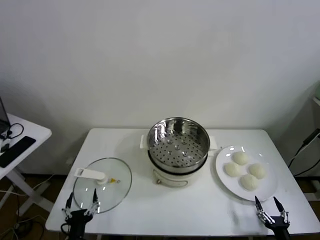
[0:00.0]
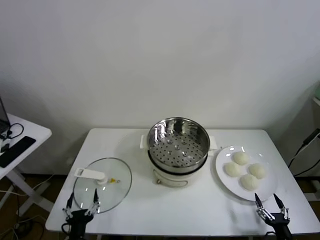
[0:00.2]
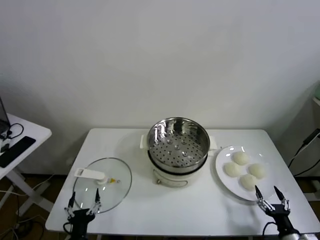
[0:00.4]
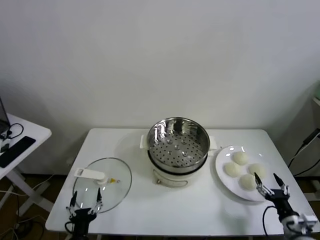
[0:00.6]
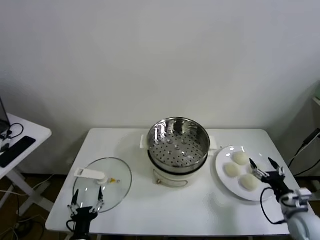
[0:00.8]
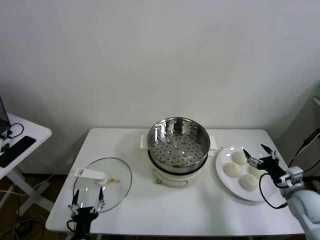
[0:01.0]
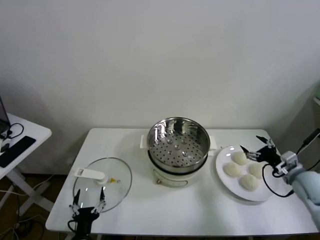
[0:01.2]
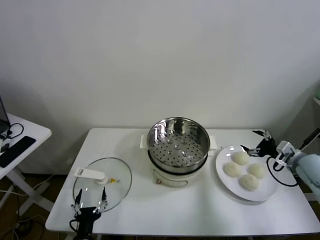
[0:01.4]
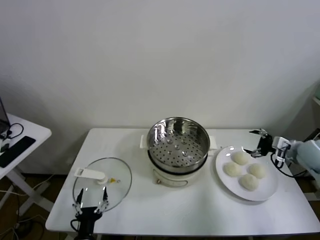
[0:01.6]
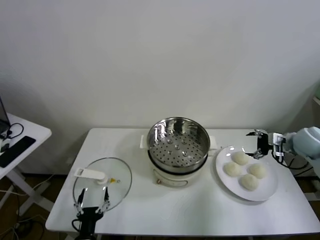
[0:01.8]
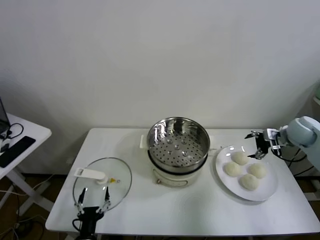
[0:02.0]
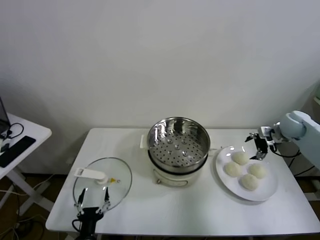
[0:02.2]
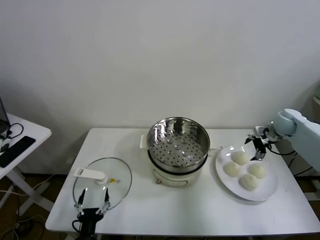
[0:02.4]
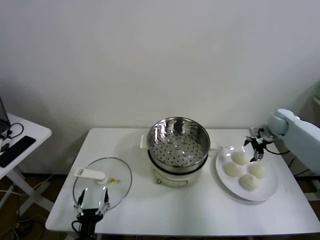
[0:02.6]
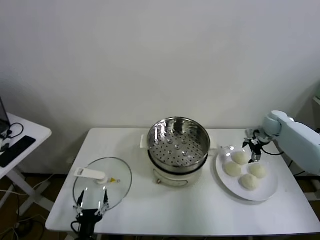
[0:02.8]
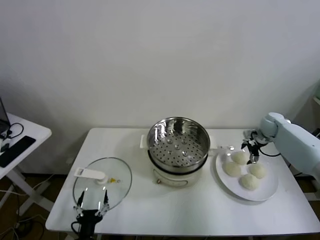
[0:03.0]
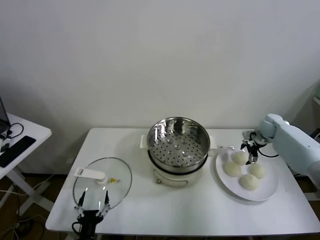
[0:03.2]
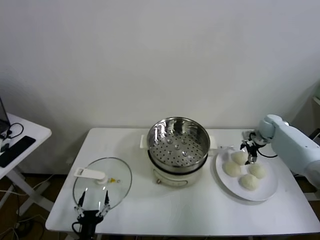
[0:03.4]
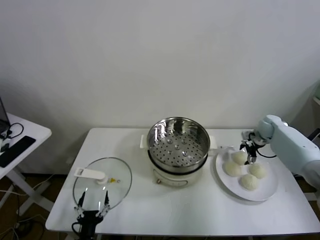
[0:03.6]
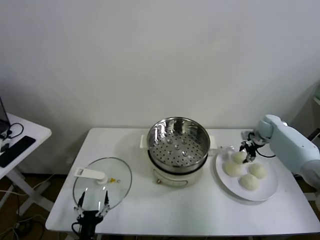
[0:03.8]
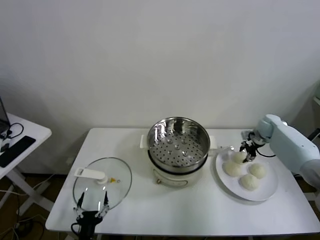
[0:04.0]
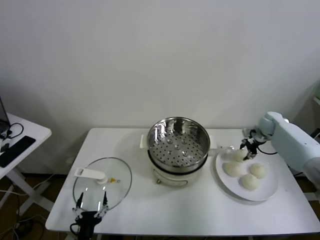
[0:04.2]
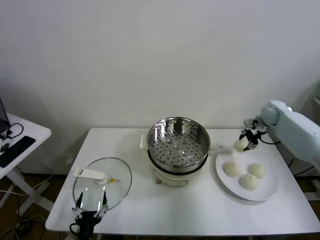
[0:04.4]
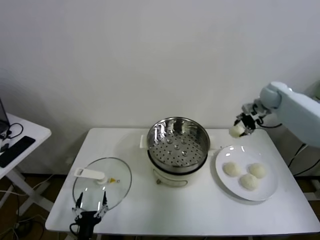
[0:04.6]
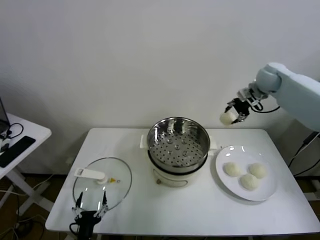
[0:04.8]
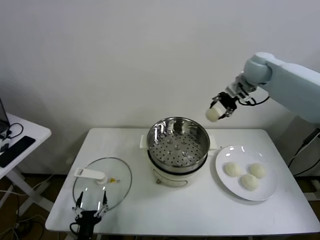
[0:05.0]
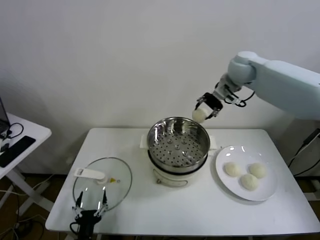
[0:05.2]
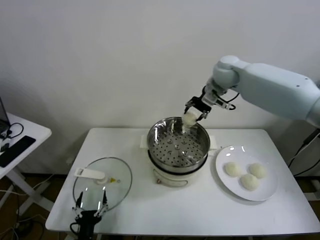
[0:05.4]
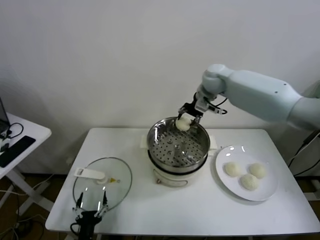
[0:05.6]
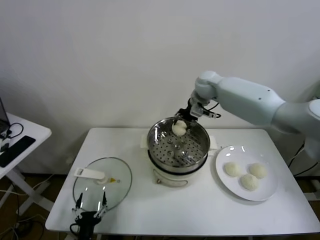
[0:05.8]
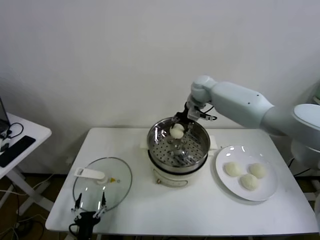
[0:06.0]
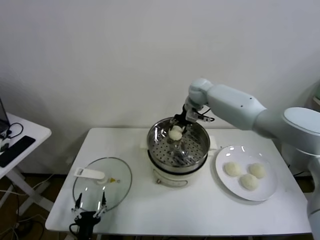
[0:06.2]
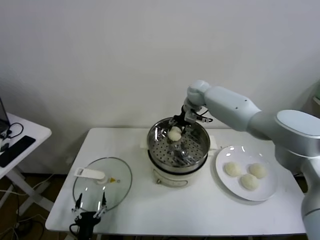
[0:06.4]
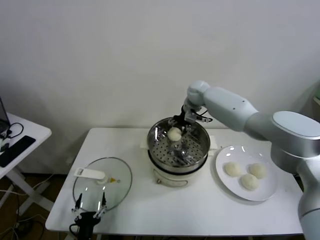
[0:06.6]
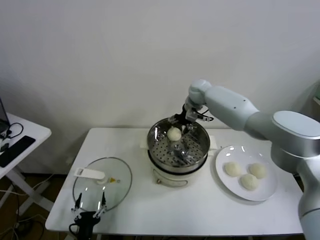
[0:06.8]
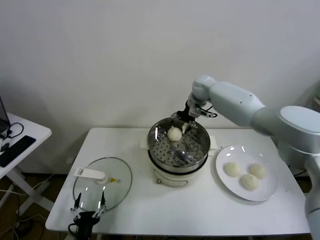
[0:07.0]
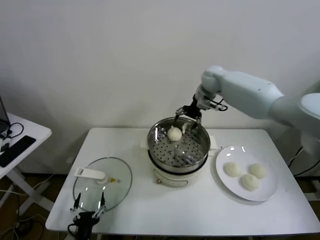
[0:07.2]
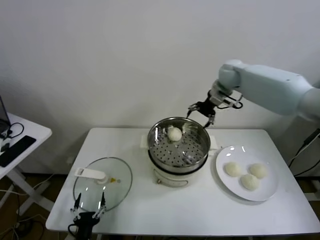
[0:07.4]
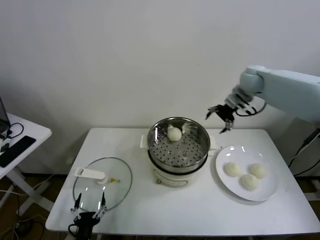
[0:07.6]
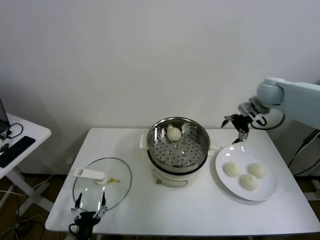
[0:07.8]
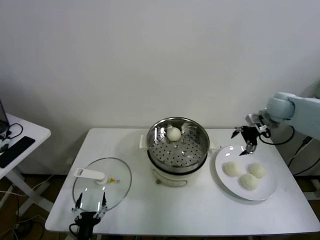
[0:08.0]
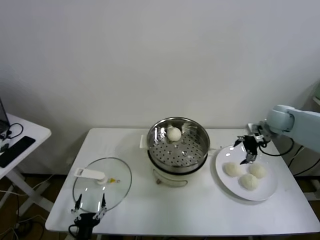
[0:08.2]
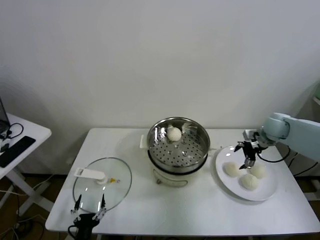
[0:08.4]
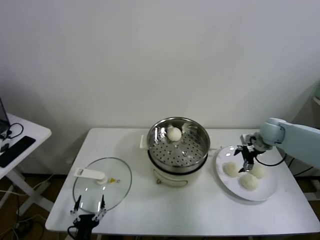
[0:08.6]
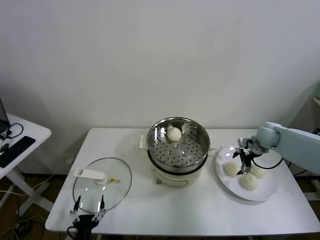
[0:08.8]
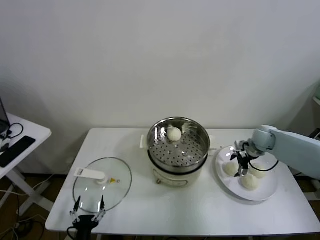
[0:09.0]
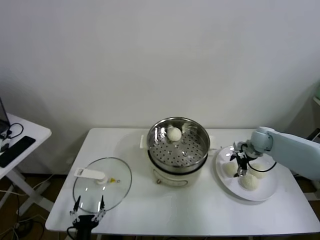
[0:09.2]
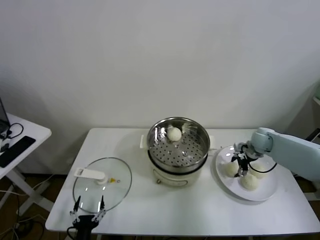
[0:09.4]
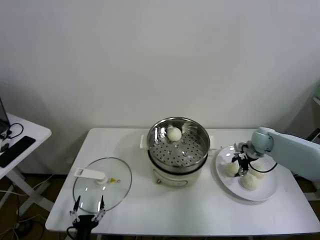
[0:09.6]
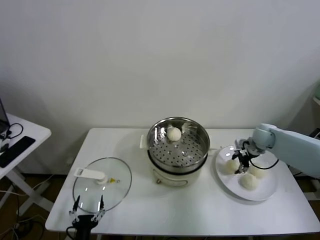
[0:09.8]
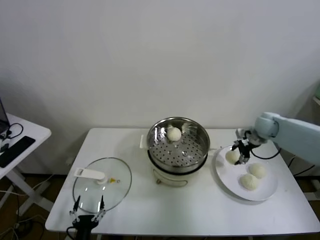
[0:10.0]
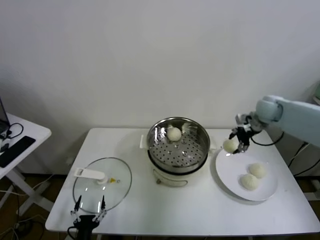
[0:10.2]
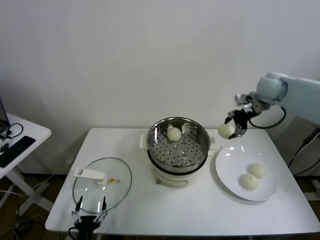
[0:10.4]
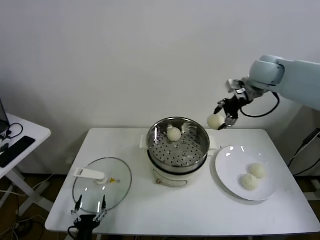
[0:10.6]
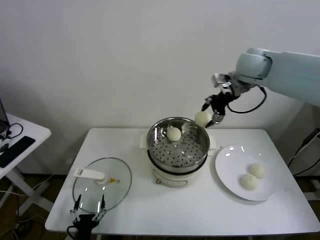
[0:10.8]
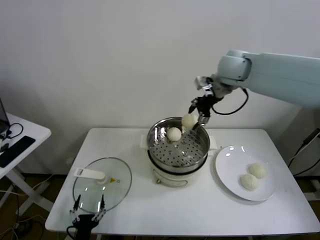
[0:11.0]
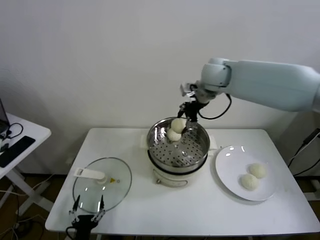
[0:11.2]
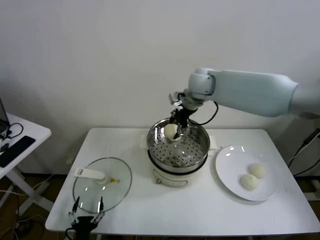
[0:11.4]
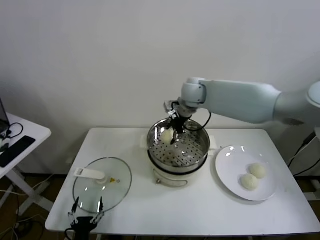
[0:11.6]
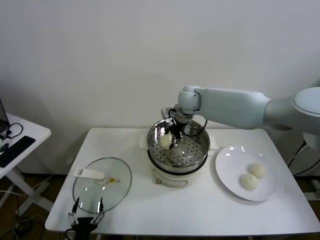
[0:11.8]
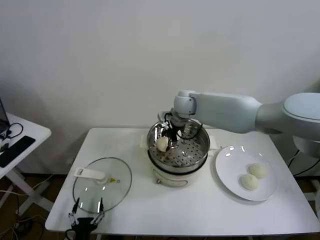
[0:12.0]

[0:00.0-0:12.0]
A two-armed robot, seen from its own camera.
Task of the whole recording: take steamed baozi put them in steamer.
Step, 0:00.0 to 0:03.8: Grasp the baozi in the plate with right gripper.
Step, 0:04.0 to 0:06.8: Place the baozi on the steamer with right gripper.
Step, 0:07.0 to 0:09.4: Grasp the baozi in the plate with right gripper.
0:01.6 to 0:03.0: The right gripper moves forward, about 15 cm.
0:03.0 to 0:04.4: The right gripper moves upward, approximately 10 cm, and closes its fingers.
0:04.4 to 0:06.0: The right gripper travels to the left by approximately 30 cm.
0:06.0 to 0:07.6: The right gripper is displaced to the right by some 20 cm, and opens.
0:07.6 to 0:09.0: The right gripper is displaced downward by roughly 20 cm.
0:09.0 to 0:10.4: The right gripper shifts roughly 25 cm upward, and closes.
0:10.4 to 0:12.0: The right gripper goes some 30 cm to the left and downward.

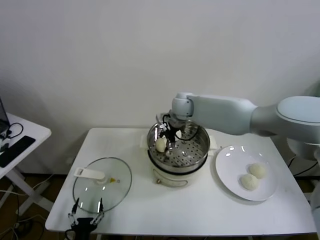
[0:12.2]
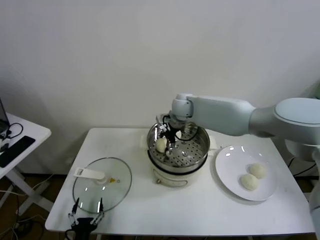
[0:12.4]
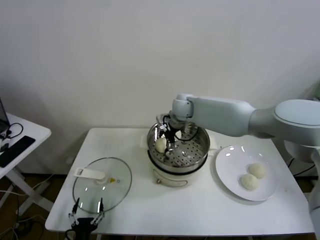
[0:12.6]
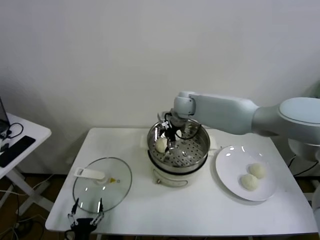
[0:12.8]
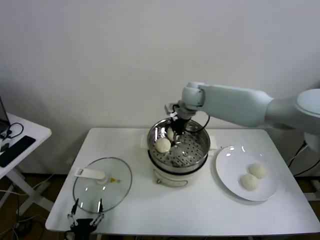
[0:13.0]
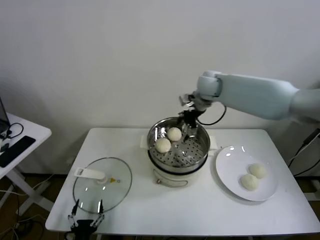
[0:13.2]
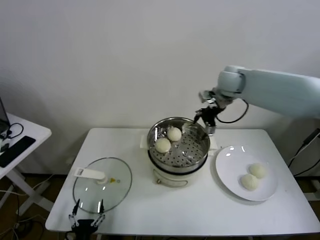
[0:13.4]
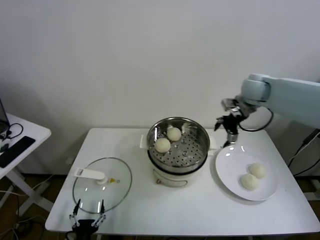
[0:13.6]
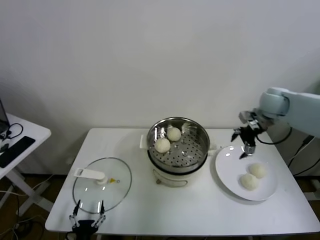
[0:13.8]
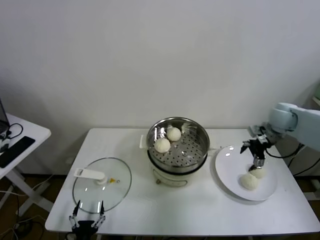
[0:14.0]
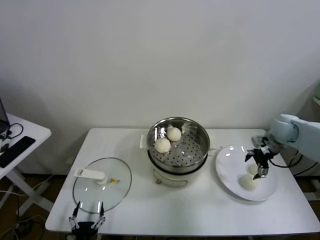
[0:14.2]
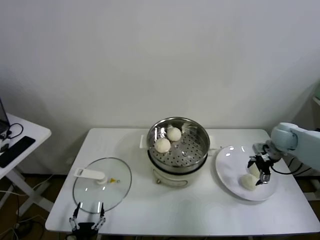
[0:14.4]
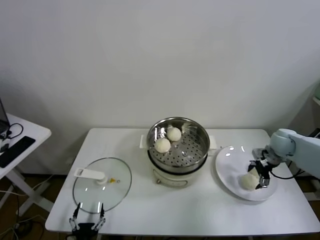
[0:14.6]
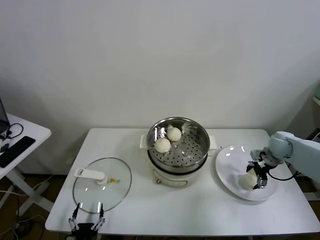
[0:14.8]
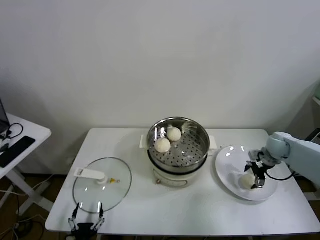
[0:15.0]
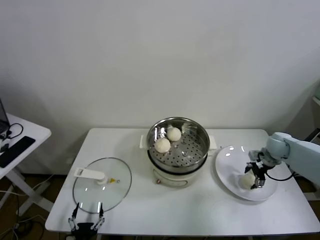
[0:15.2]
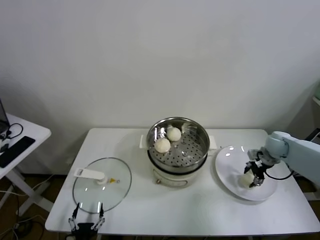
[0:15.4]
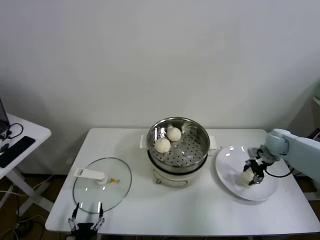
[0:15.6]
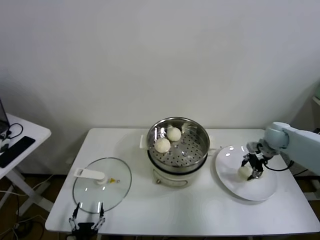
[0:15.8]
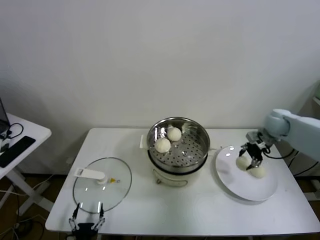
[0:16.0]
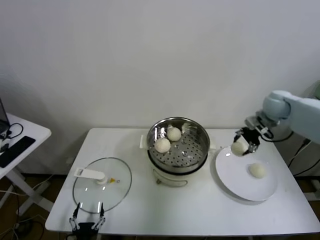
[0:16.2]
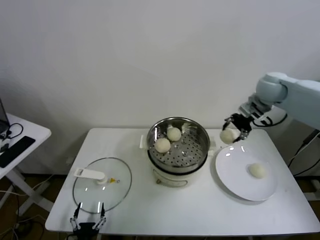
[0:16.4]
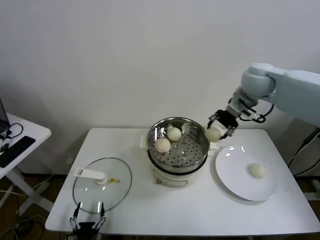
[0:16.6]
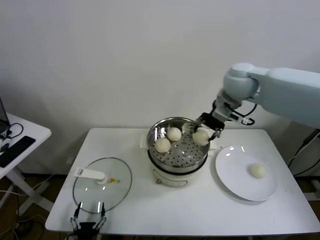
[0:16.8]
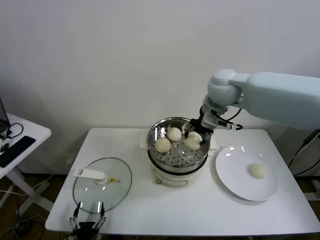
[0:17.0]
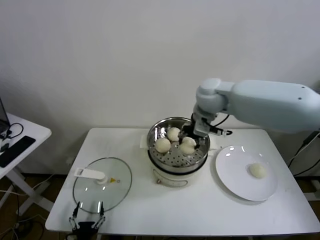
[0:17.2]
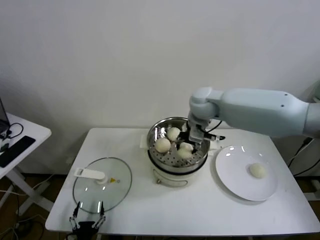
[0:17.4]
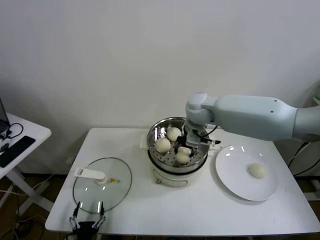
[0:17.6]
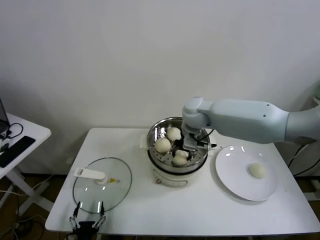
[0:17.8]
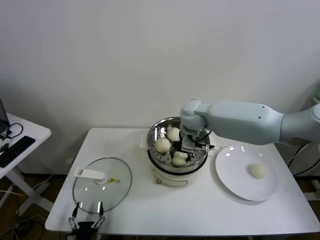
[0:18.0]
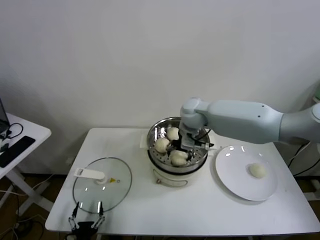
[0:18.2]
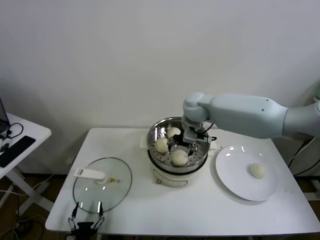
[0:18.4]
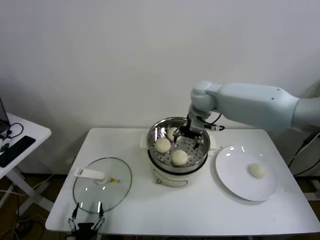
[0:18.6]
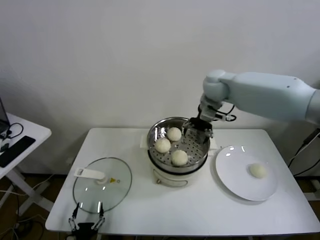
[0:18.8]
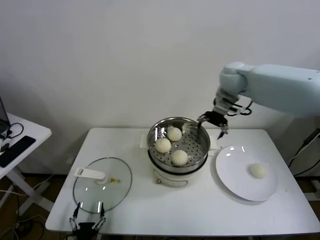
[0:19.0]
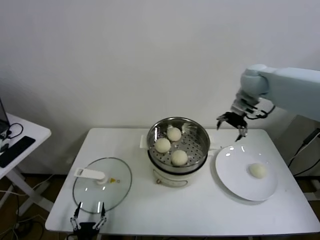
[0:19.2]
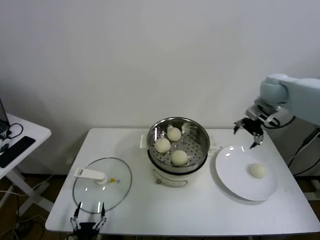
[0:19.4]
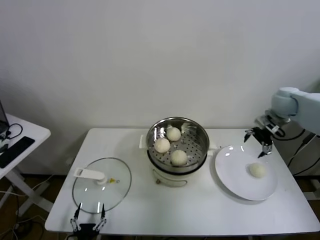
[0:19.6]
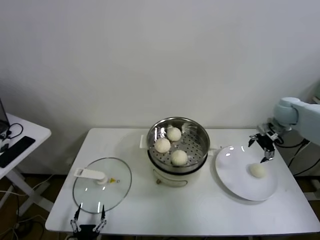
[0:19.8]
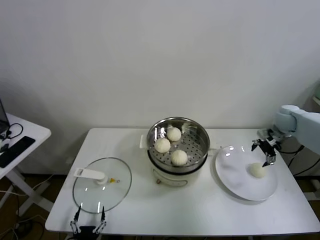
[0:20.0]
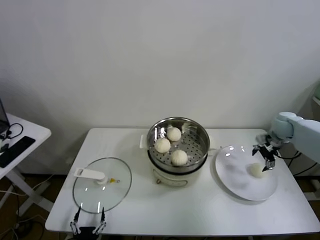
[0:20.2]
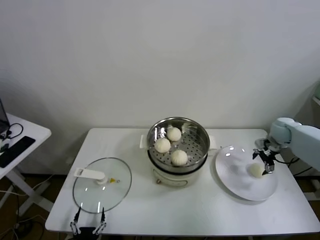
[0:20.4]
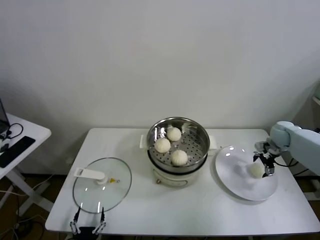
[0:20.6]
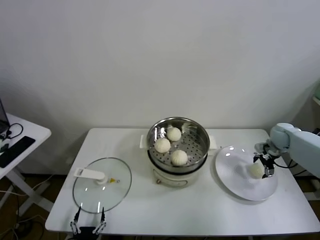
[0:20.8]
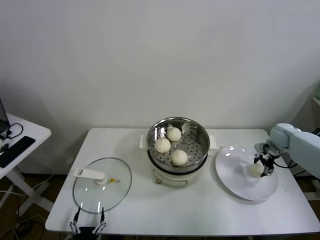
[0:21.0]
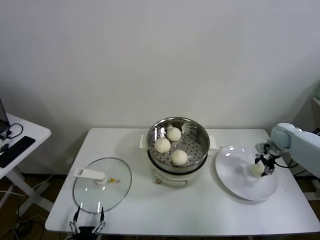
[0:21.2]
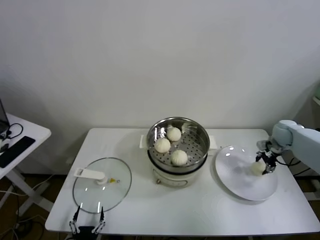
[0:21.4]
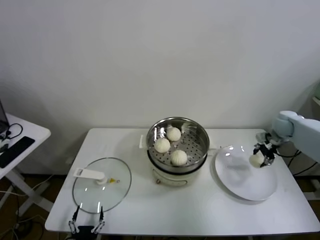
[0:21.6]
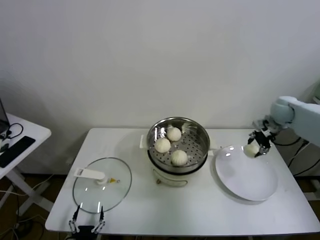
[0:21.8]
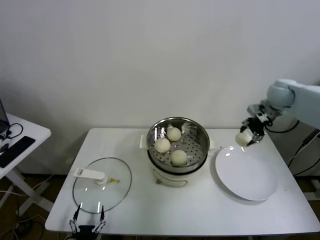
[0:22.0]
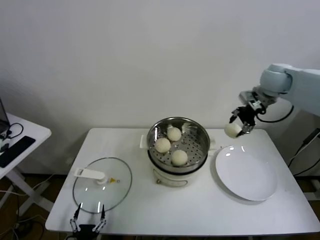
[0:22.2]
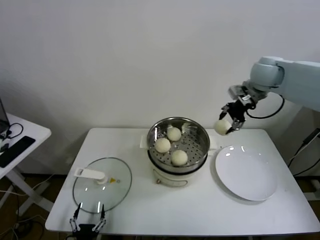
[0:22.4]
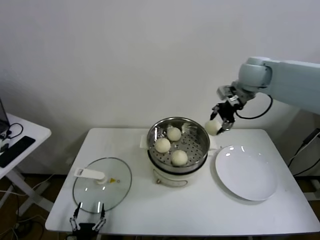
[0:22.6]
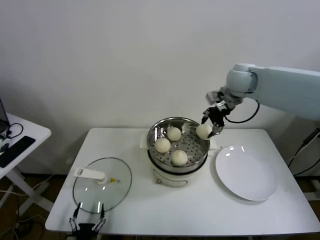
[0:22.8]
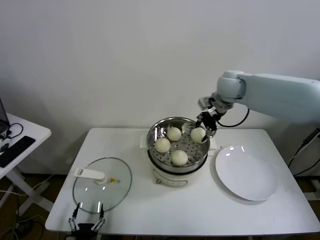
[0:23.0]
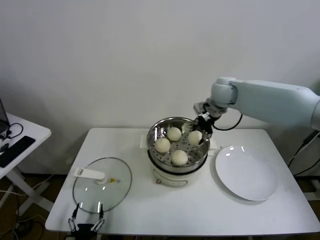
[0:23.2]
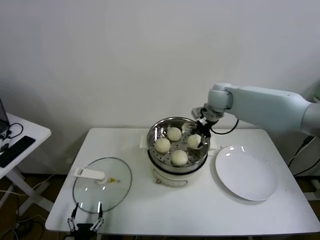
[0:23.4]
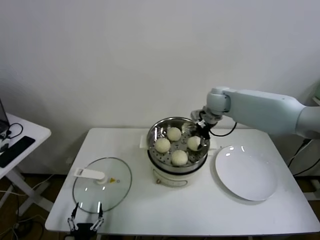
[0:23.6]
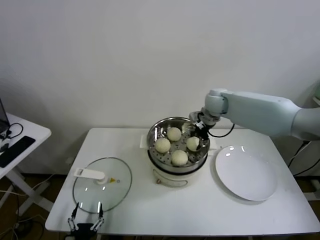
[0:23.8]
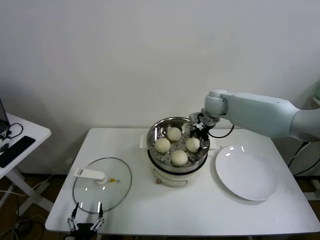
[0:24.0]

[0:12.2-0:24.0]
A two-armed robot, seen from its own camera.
Task of the whole recording: take steamed baozi put them in steamer.
Step, 0:13.0 to 0:15.2: Grasp the baozi in the plate with right gripper.
Step, 0:15.6 to 0:18.2: Place the baozi on the steamer with right gripper.
Step, 0:18.6 to 0:20.8: Grasp the baozi in the plate with right gripper.
Step, 0:21.2 to 0:24.0: Place the baozi on the steamer with right gripper.
0:12.2 to 0:13.6: The right gripper heads to the right, covering roughly 25 cm, and opens.
0:13.6 to 0:15.2: The right gripper is displaced downward and to the right by roughly 25 cm.
0:15.2 to 0:16.6: The right gripper shifts about 30 cm upward and to the left, and closes its fingers.
0:16.6 to 0:18.2: The right gripper travels to the left and downward by approximately 20 cm, and opens.
0:18.2 to 0:19.6: The right gripper goes roughly 30 cm to the right.
0:19.6 to 0:21.0: The right gripper shifts about 15 cm downward, and closes.
0:21.0 to 0:22.6: The right gripper shifts some 35 cm upward and to the left.
0:22.6 to 0:24.0: The right gripper travels downward and to the left by roughly 15 cm, and opens.
